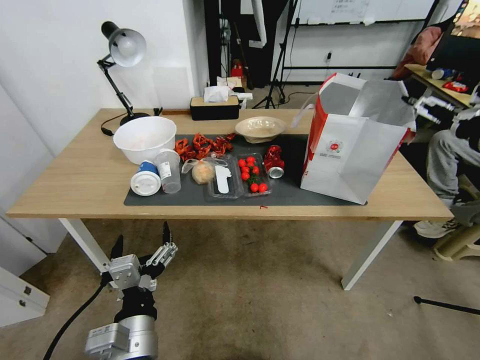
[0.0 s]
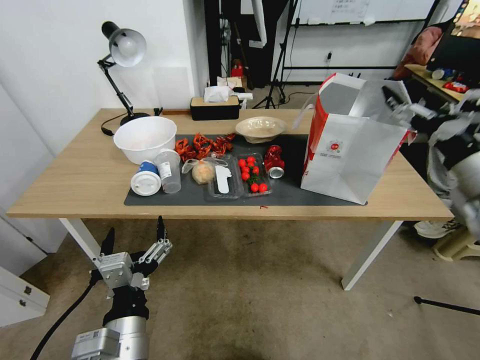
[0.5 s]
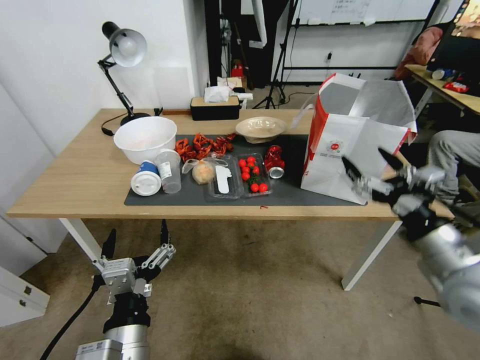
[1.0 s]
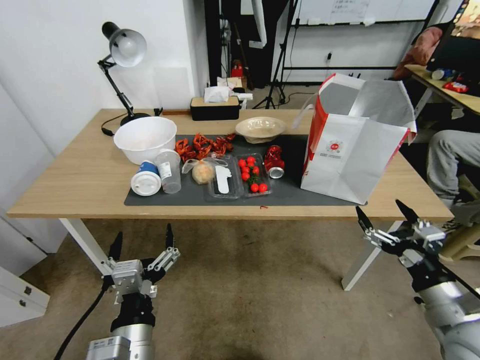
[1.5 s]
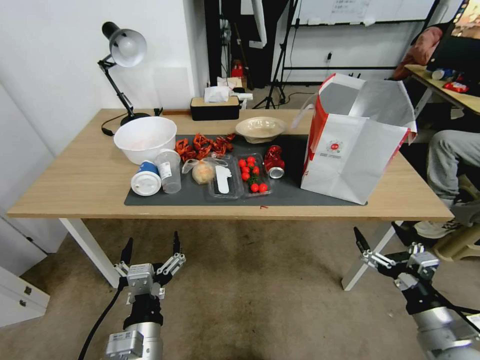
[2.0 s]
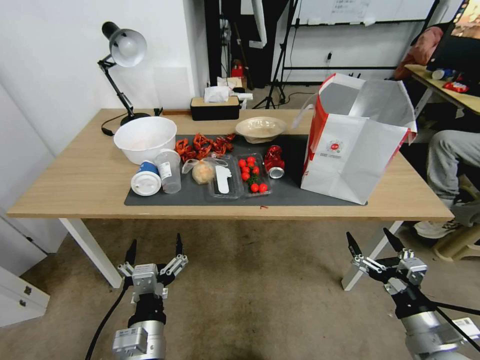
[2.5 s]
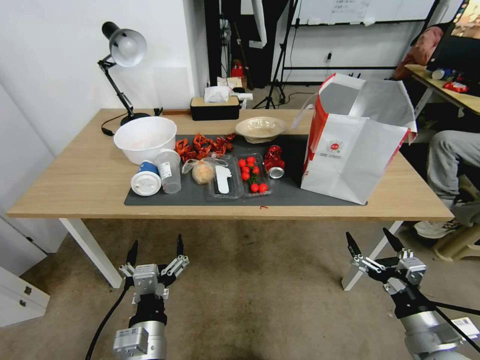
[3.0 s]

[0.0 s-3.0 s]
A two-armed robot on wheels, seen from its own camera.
Task of the whole recording: Pick up the food delivery bag from the floor and place it on the table.
0.0 to 1.5 s: The right gripper moves downward and backward, some 30 cm.
1.5 to 3.0 s: The two grippers go approximately 5 cm downward.

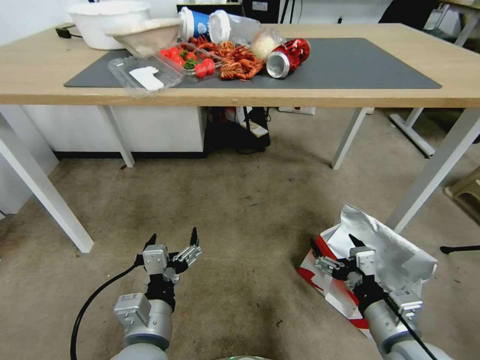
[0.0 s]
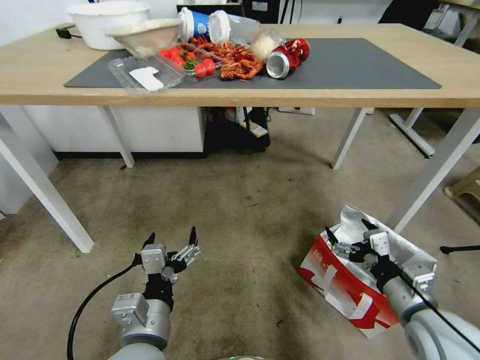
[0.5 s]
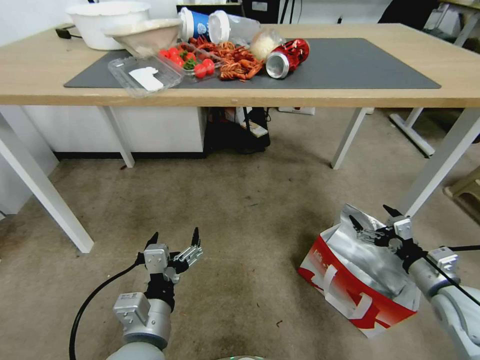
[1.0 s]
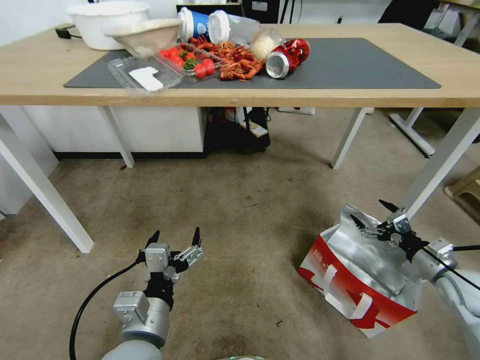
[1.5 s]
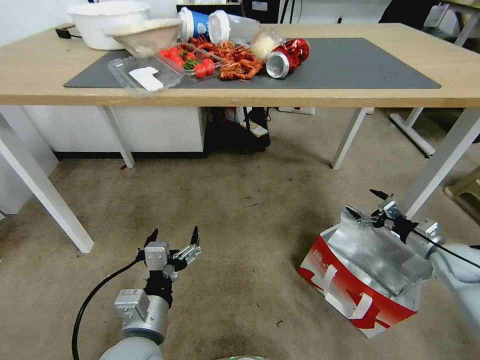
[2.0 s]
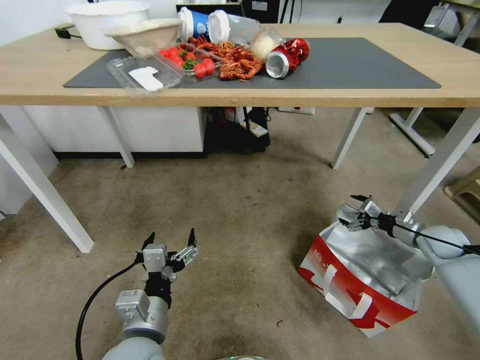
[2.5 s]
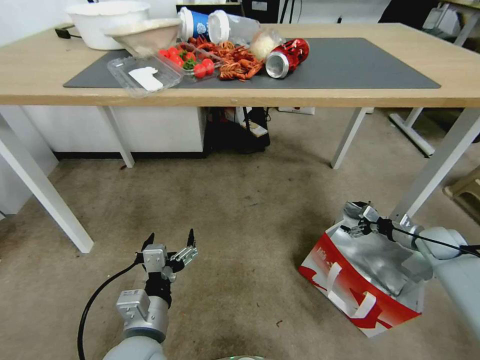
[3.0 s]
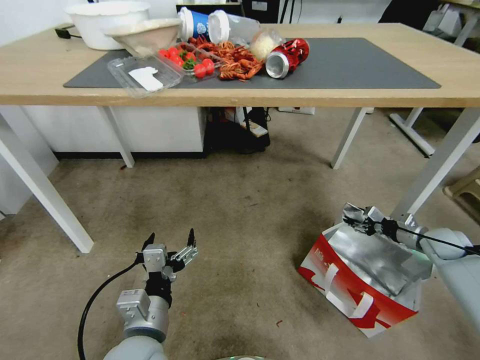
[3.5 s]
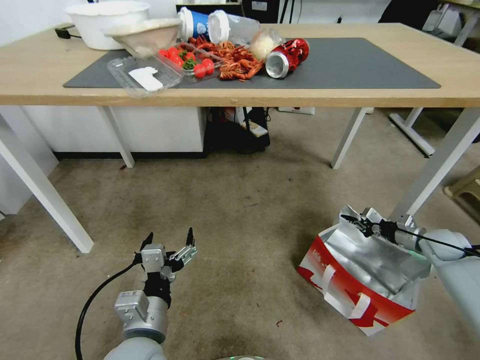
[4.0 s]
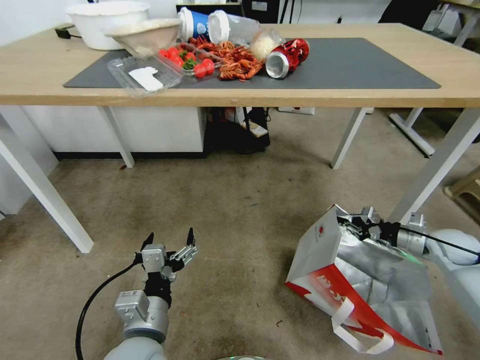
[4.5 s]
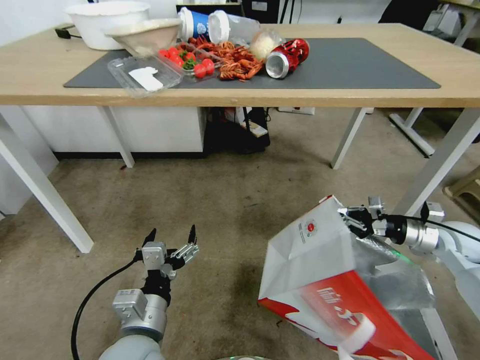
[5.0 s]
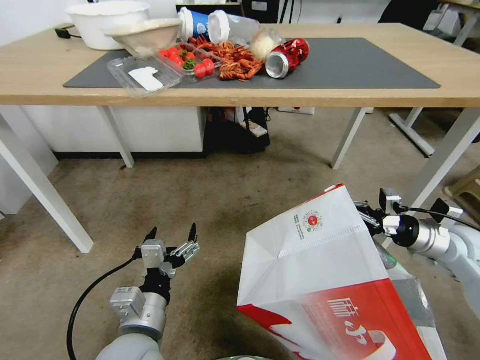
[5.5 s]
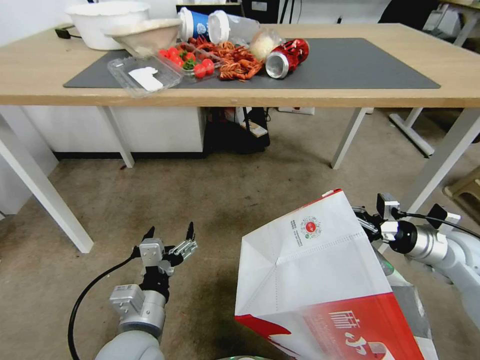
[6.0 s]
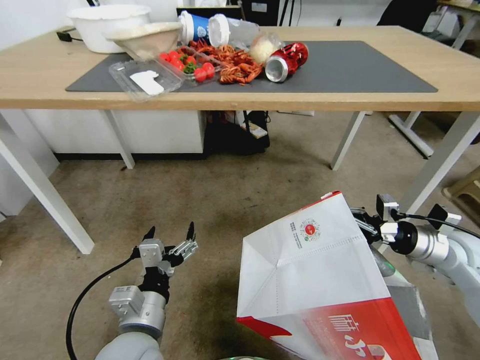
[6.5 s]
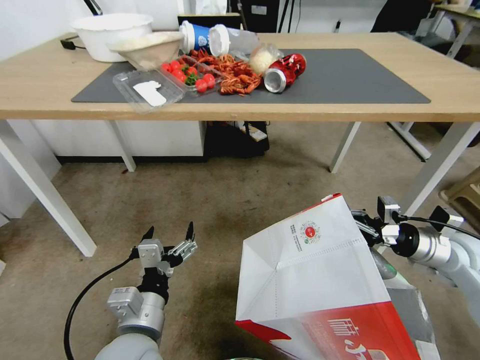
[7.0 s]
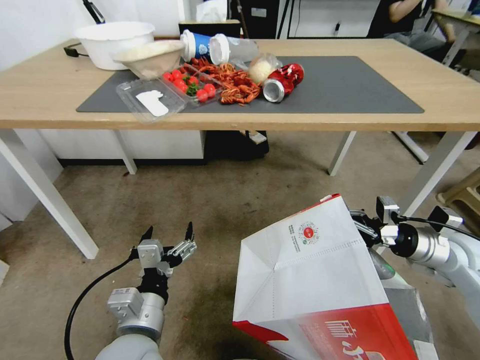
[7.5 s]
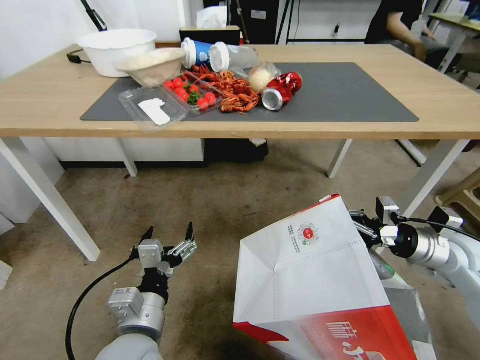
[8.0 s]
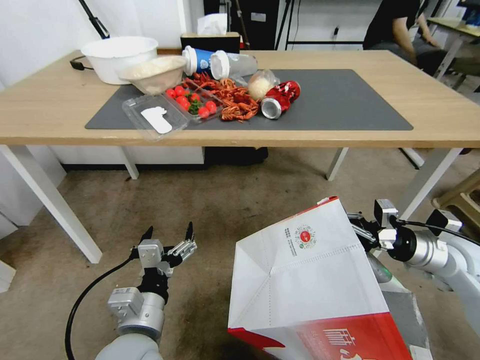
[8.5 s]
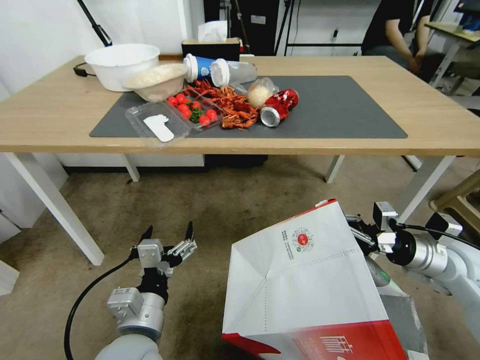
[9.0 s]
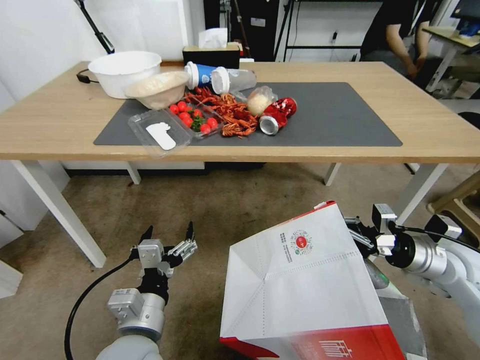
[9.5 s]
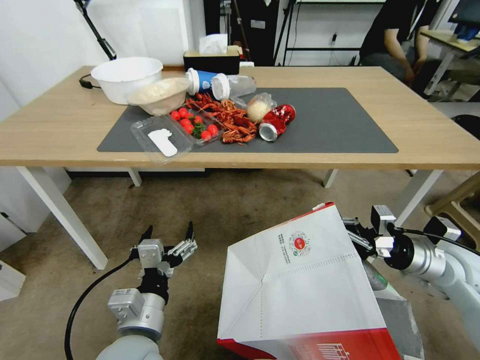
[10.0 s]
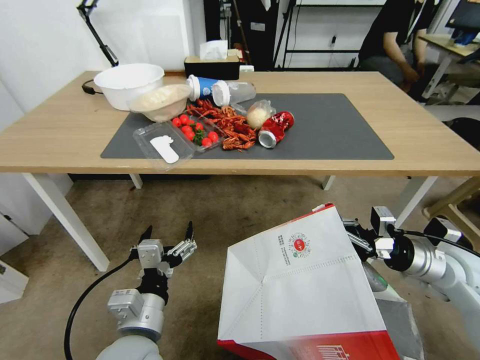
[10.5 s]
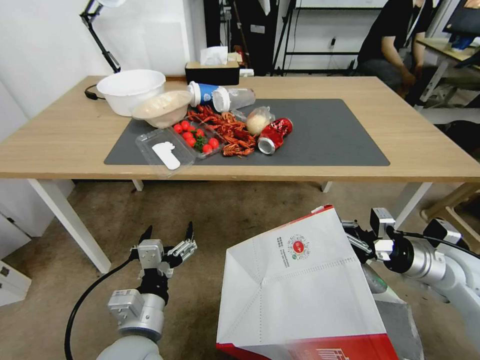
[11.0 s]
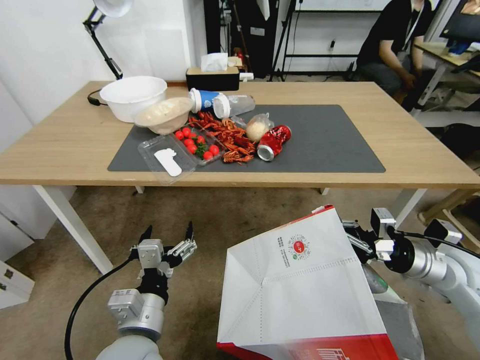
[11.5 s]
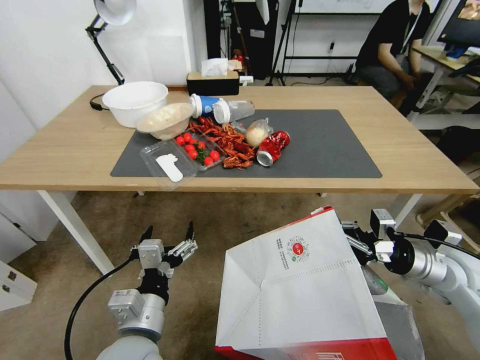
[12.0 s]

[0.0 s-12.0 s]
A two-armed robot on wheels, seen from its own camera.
Task of the whole recording: Pick up the food delivery bag from the floor and place it on the table.
0.0 to 2.0 s: The right gripper moves to the right and forward, roughly 30 cm.
2.0 to 4.0 s: The right gripper heads forward, covering roughly 5 cm, and closes its fingers.
4.0 to 6.0 s: The right gripper travels upward, to the left and backward by about 15 cm.

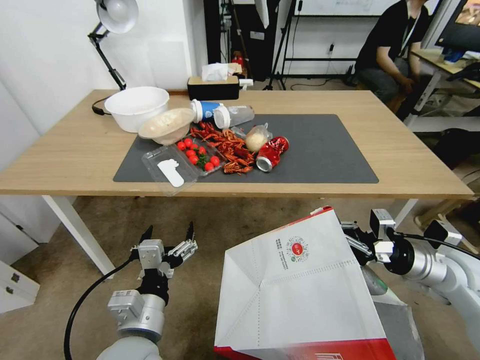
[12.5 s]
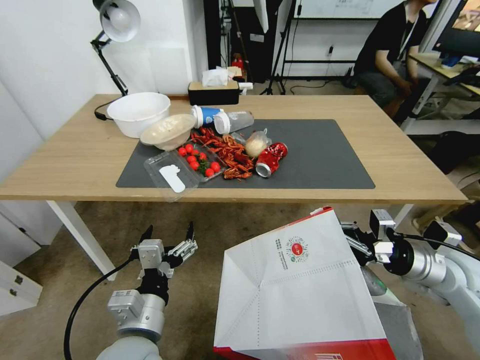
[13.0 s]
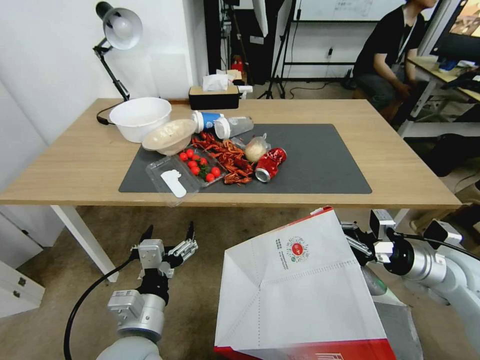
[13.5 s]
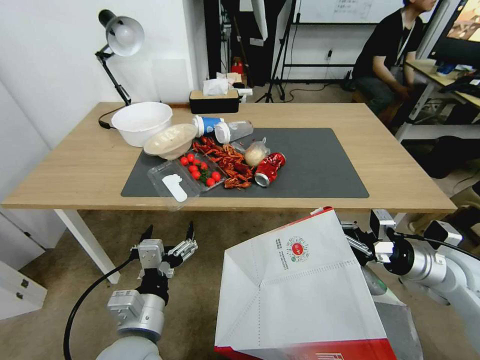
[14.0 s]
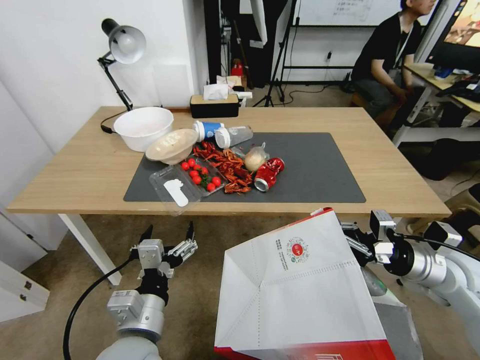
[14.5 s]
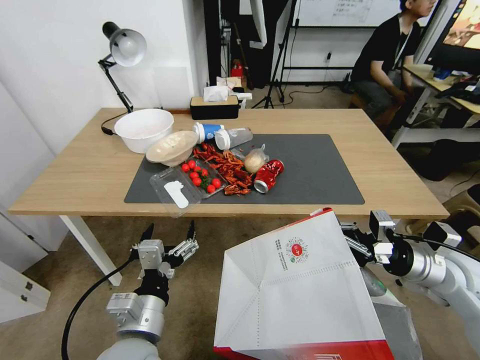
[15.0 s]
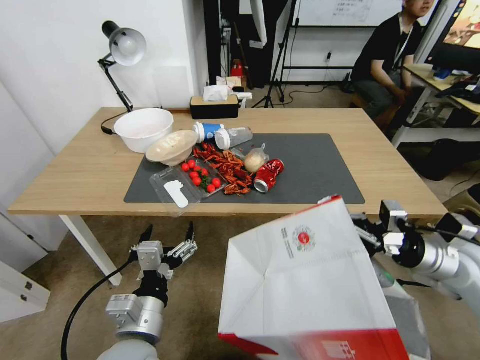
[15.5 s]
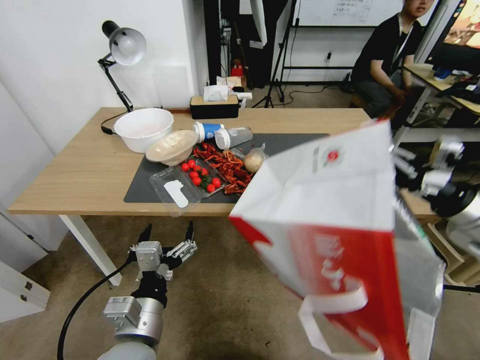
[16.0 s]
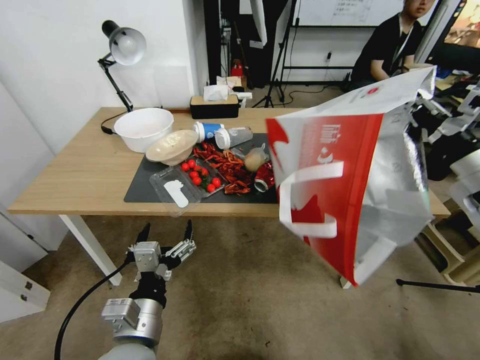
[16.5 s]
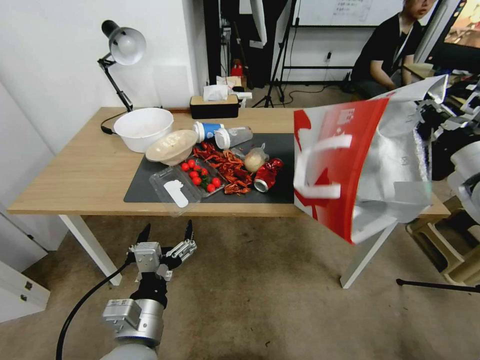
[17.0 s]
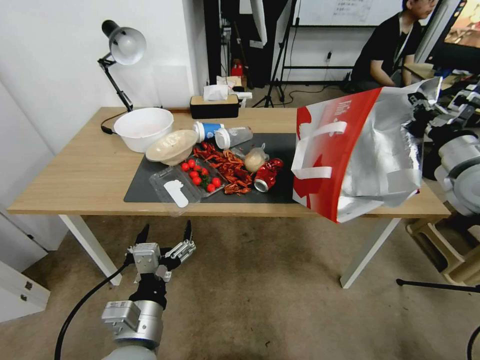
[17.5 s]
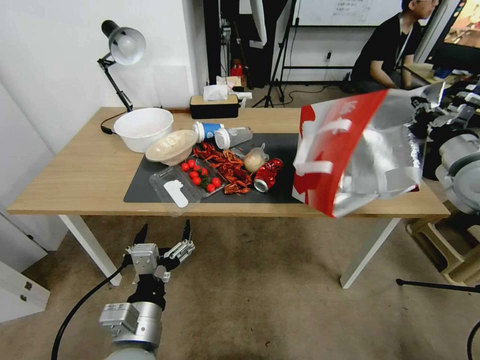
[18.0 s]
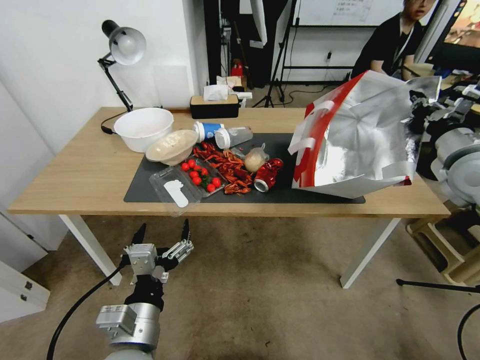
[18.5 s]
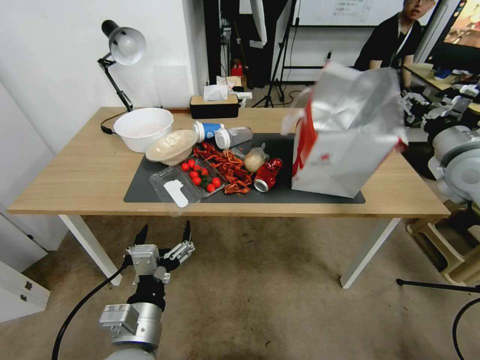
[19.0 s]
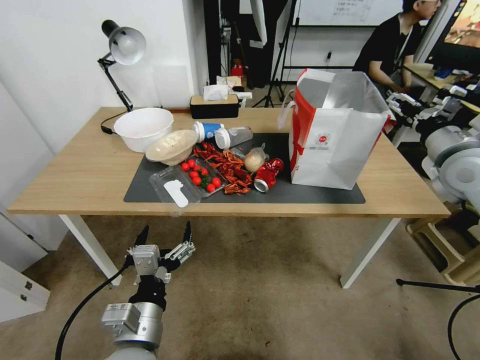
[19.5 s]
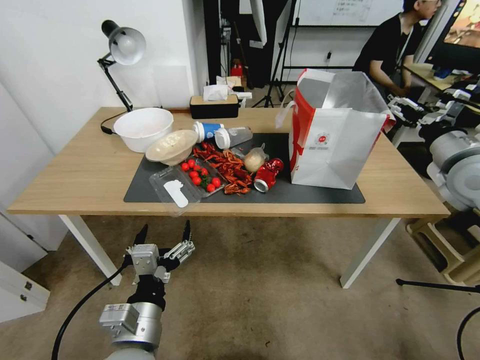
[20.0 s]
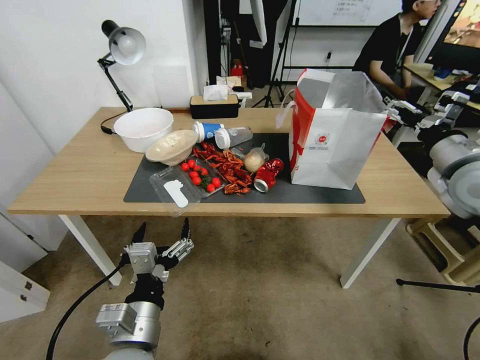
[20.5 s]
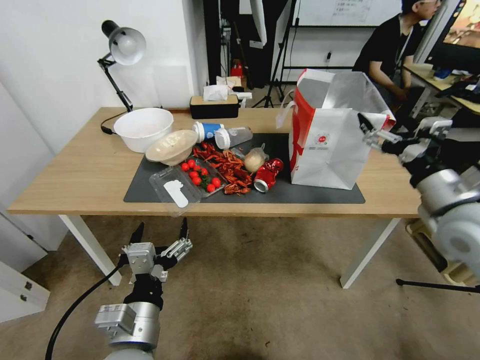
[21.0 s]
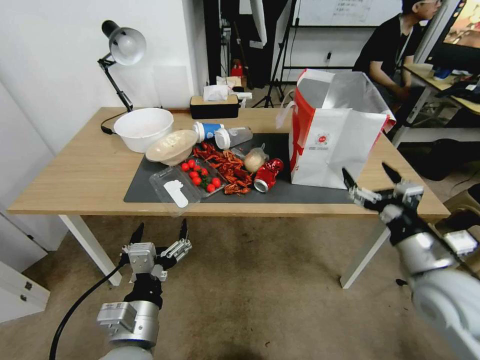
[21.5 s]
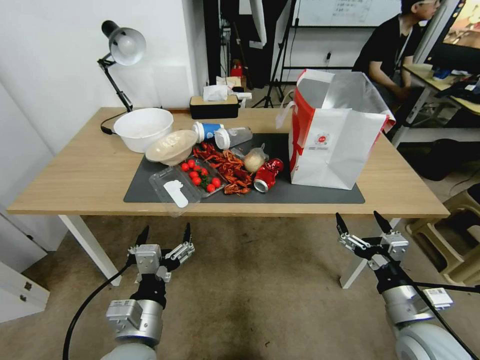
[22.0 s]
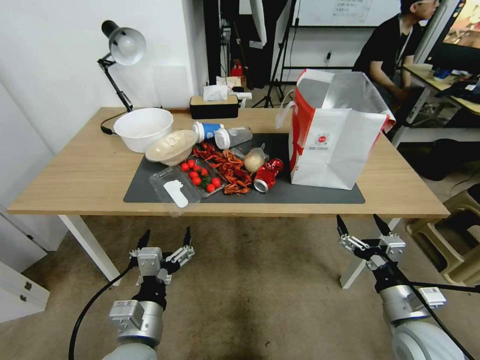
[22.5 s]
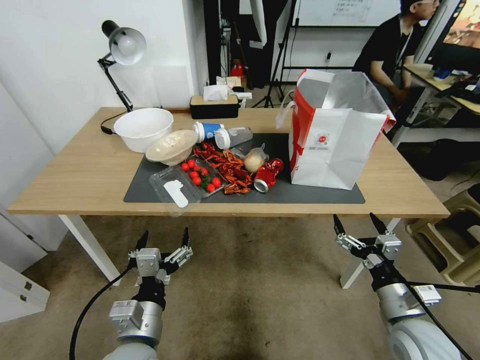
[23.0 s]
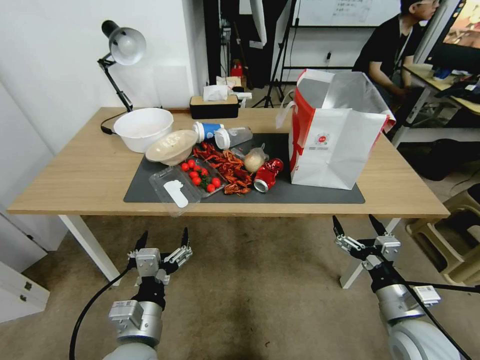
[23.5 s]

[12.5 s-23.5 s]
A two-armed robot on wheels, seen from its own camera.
Task of the whole recording: Pick up the food delivery bag from the floor and place it on the table.
14.5 to 16.0 s: The right gripper moves upward, some 10 cm.
16.0 to 18.0 s: The right gripper heads forward, covering some 10 cm.
18.0 to 20.0 s: The right gripper opens up.
20.0 to 21.5 s: The right gripper shifts some 15 cm backward, downward and to the left.
21.5 to 23.5 s: The right gripper goes roughly 15 cm downward and backward.
